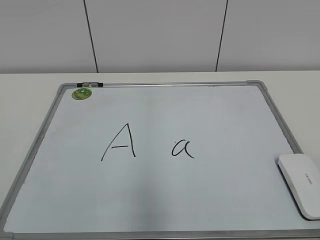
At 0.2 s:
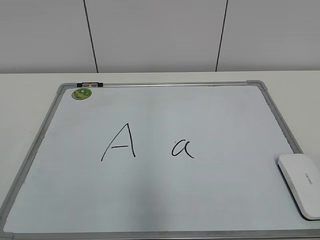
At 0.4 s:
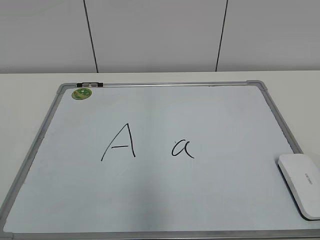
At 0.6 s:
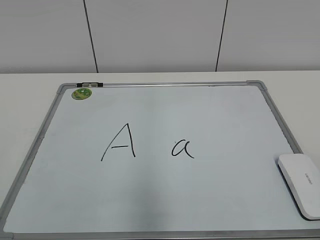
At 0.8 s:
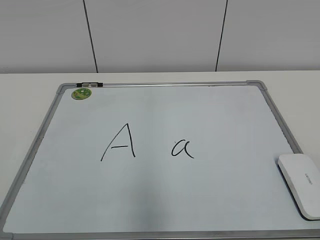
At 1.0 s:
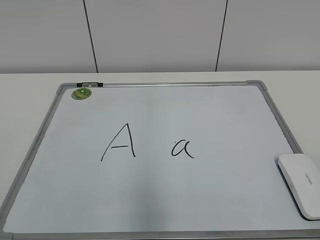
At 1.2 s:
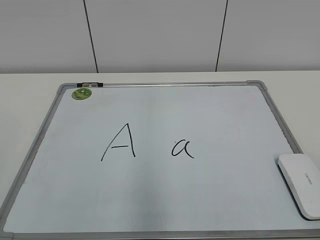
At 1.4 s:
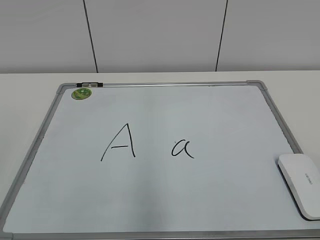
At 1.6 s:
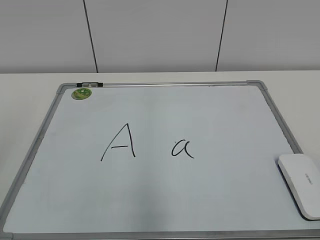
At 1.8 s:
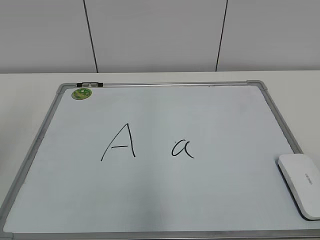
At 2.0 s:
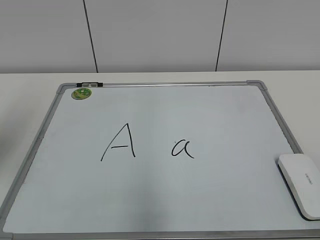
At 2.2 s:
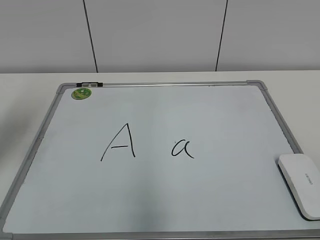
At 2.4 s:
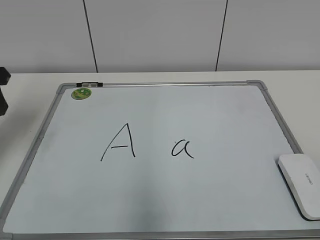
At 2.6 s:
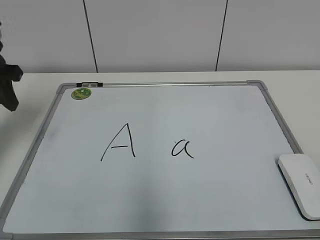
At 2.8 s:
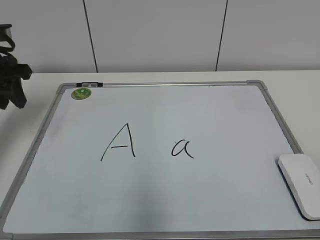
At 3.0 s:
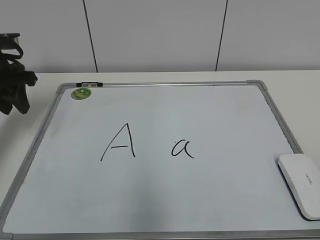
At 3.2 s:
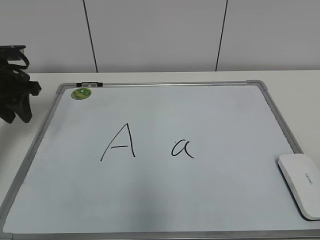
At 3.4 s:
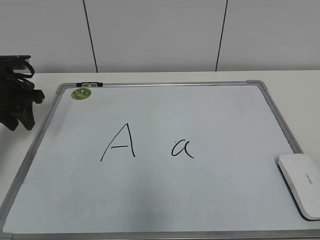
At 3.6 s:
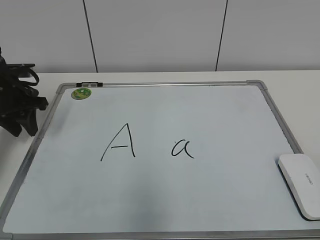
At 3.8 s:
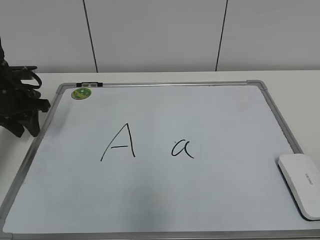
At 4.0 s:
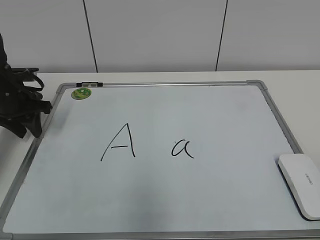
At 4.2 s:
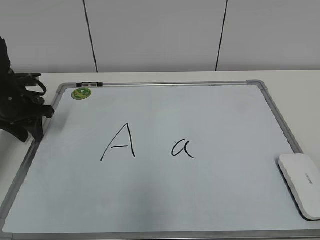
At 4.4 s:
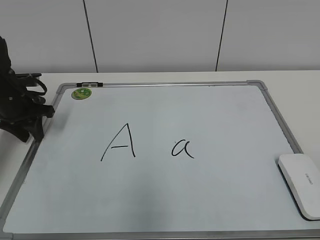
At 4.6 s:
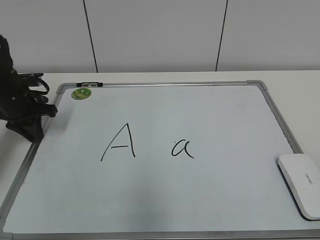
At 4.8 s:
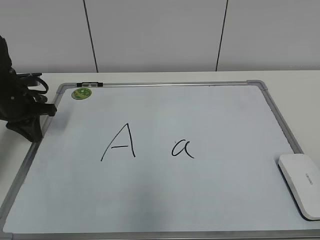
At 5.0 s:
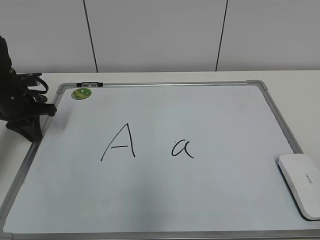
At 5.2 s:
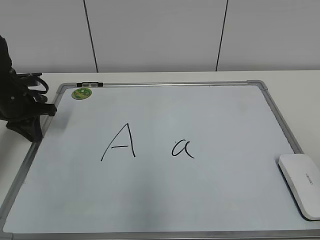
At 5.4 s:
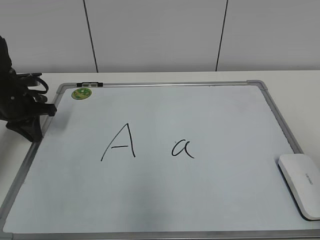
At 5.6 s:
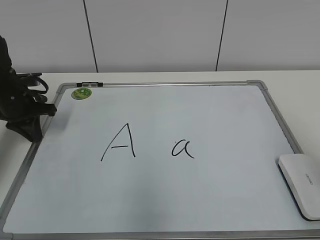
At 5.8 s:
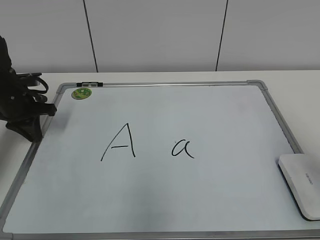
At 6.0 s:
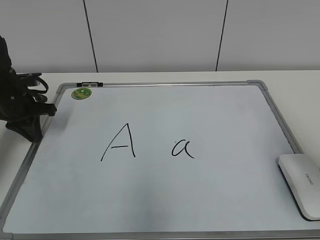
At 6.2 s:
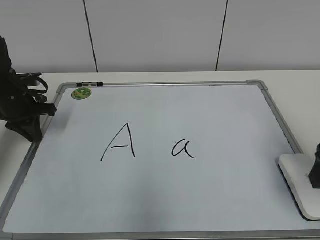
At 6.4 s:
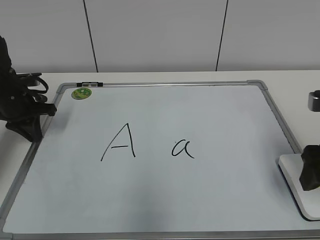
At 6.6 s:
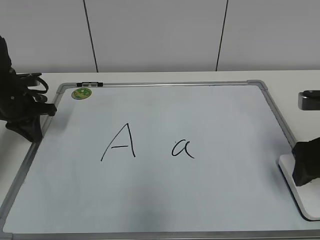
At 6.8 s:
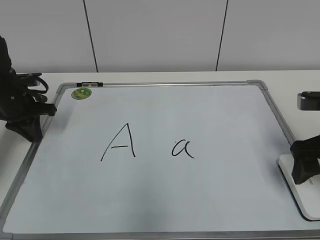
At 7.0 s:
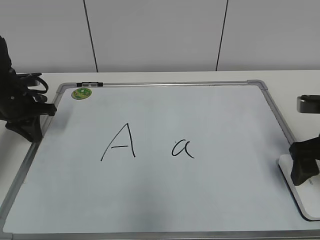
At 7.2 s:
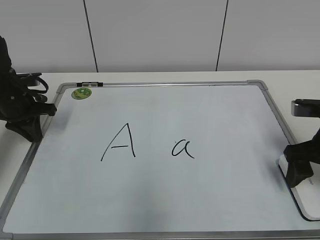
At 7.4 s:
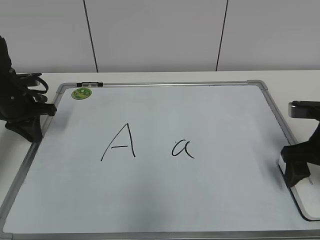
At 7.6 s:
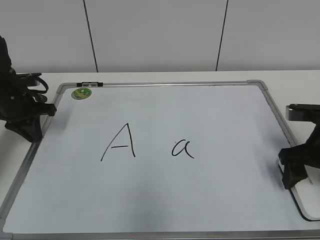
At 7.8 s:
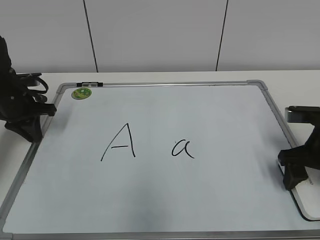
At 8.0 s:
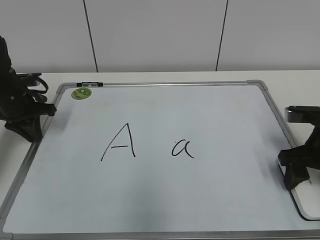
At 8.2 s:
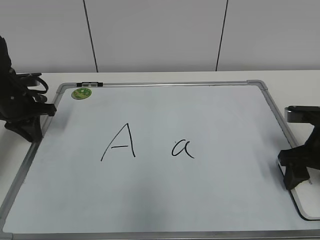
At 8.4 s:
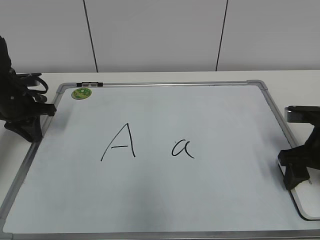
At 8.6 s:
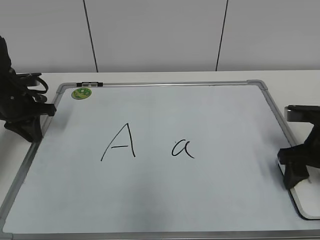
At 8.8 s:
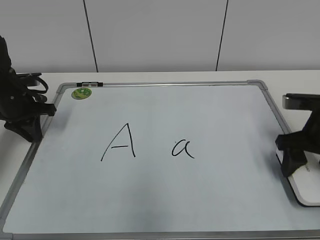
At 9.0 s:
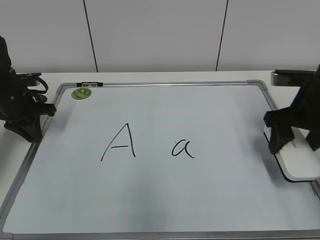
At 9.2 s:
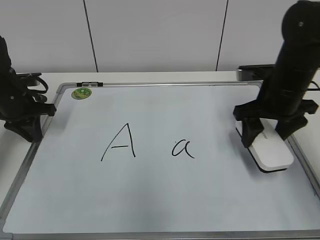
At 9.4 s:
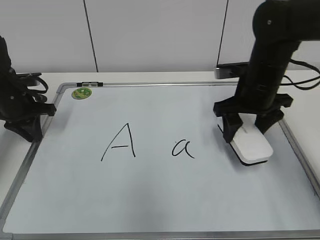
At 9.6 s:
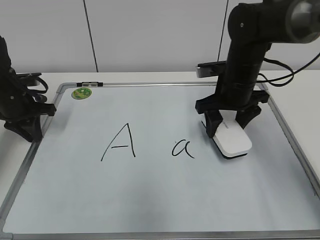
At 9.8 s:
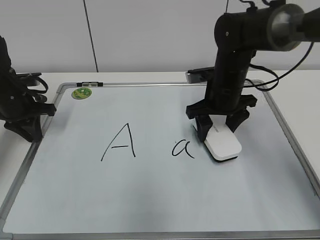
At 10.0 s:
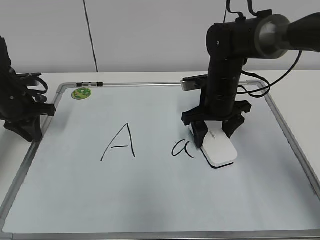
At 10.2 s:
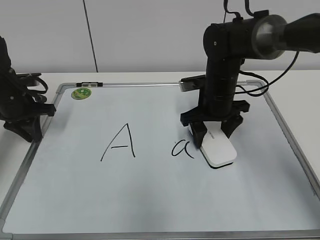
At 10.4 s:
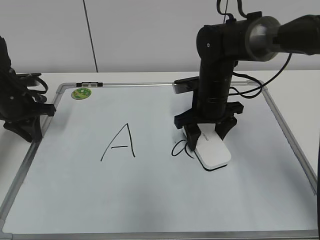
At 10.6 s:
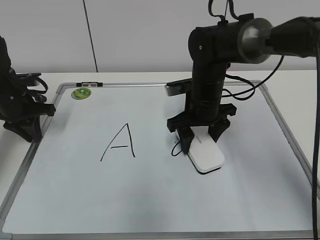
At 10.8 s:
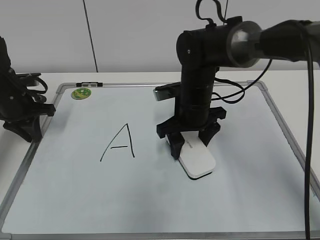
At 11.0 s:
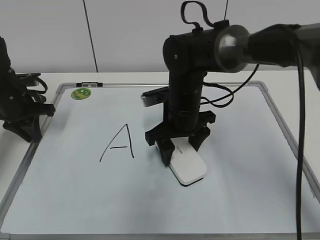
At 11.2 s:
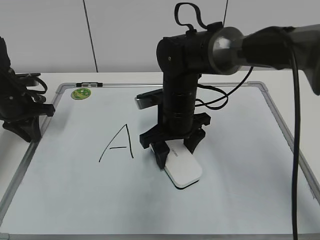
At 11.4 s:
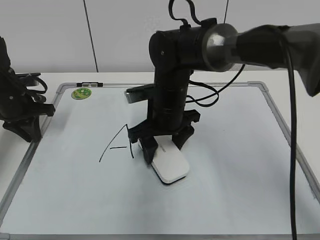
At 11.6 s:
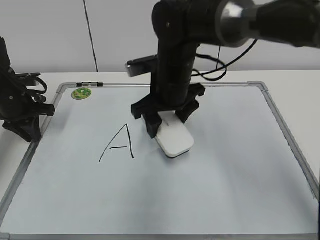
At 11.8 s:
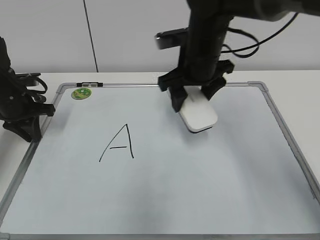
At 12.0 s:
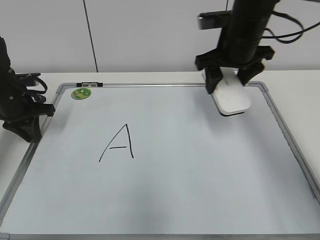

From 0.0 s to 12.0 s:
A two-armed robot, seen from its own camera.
Task of the whole recording: pick up the eraser on the blackboard and erase the letter "a".
Step, from 0.0 s to 4.6 s: Hold the drawing board steady with your left hand.
Step, from 4.8 s to 8.4 s: Grab the eraser with your right hand.
Step, from 8.6 s to 11.0 s: Erase the letter a with your right hand.
From 1.6 s to 3.0 s: The left gripper is displaced forward by approximately 25 cm.
From 3.0 s to 4.4 s: The left gripper travels downward by approximately 10 cm.
From 4.4 s to 6.0 s: The left gripper closes its fingers, while the right gripper heads forward, covering roughly 20 cm, and opens.
From 6.0 s to 7.6 s: The right gripper shifts roughly 15 cm downward and forward.
From 7.6 s to 9.0 s: The right gripper ends up roughly 5 cm from where it was, and closes.
From 9.0 s to 10.4 s: The right gripper travels to the left and forward by some 15 cm.
From 10.4 s to 12.0 s: The right gripper moves upward and to the right, roughly 15 cm.

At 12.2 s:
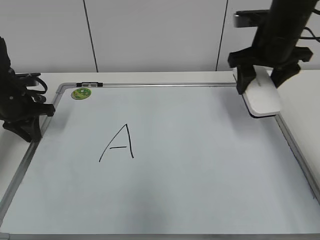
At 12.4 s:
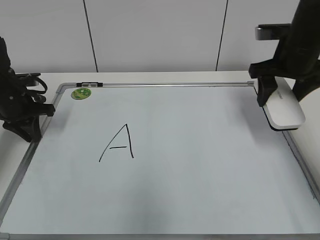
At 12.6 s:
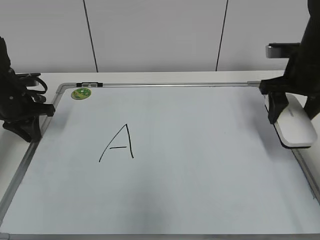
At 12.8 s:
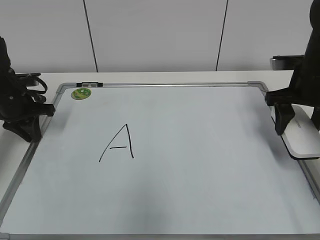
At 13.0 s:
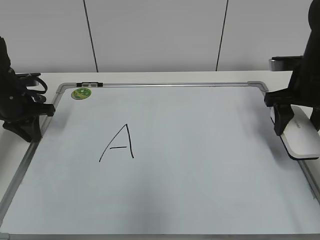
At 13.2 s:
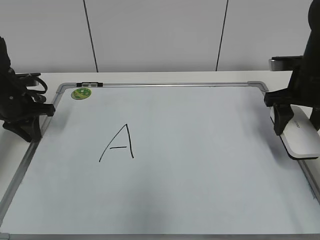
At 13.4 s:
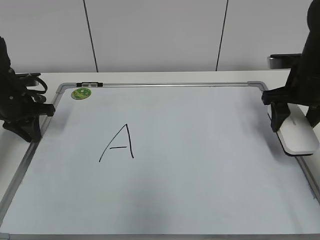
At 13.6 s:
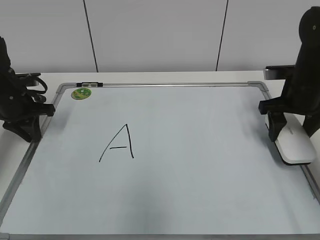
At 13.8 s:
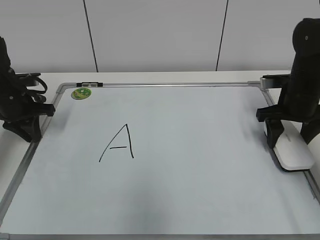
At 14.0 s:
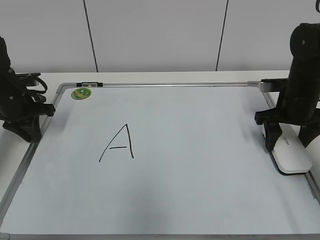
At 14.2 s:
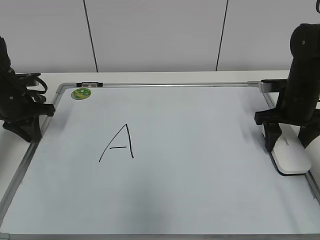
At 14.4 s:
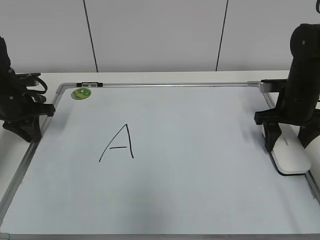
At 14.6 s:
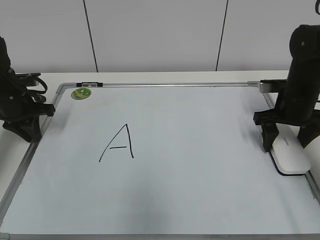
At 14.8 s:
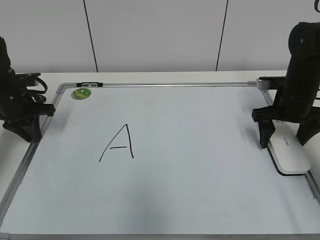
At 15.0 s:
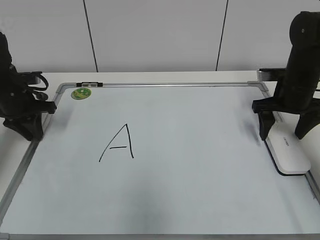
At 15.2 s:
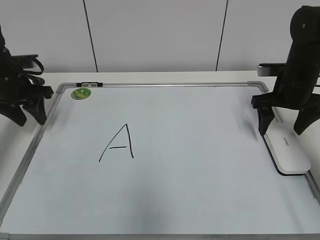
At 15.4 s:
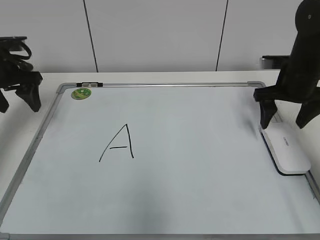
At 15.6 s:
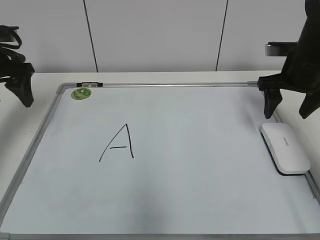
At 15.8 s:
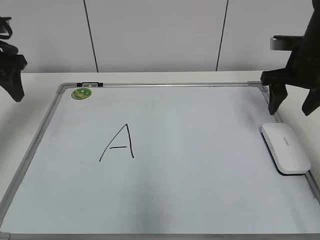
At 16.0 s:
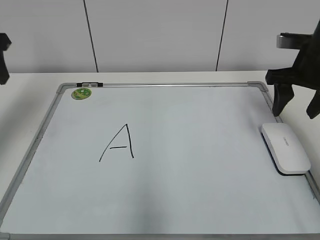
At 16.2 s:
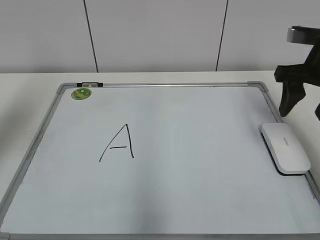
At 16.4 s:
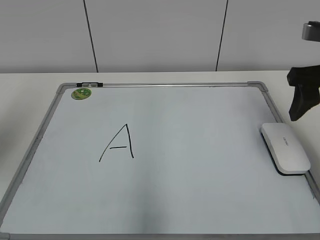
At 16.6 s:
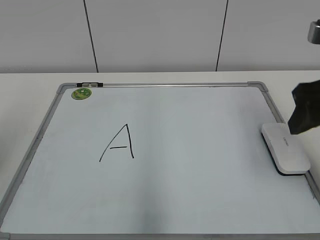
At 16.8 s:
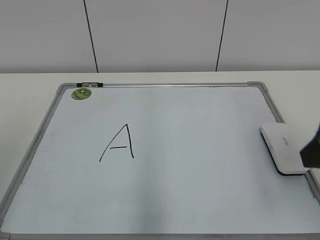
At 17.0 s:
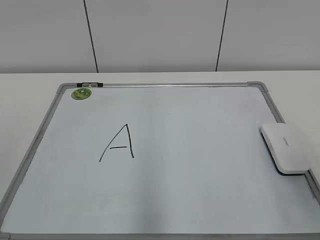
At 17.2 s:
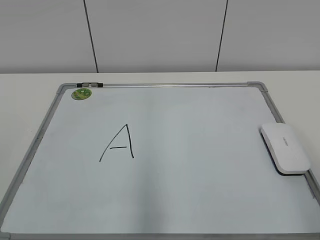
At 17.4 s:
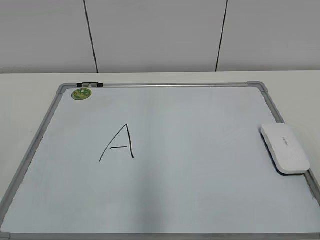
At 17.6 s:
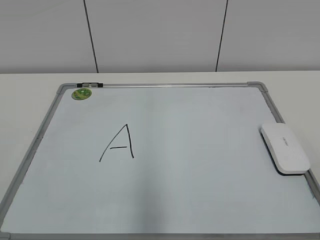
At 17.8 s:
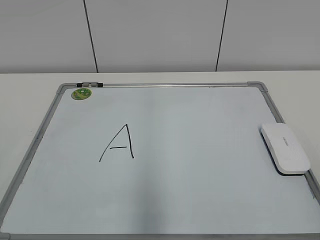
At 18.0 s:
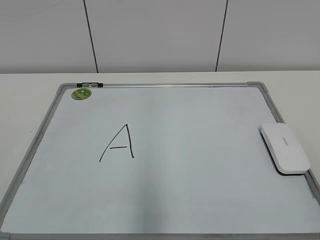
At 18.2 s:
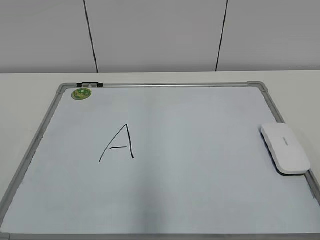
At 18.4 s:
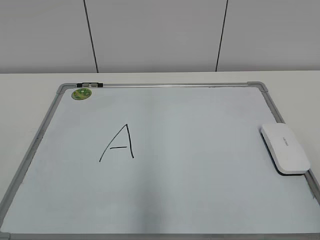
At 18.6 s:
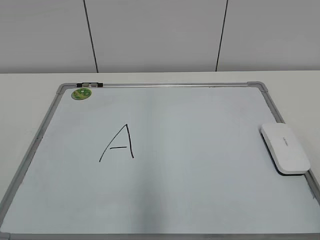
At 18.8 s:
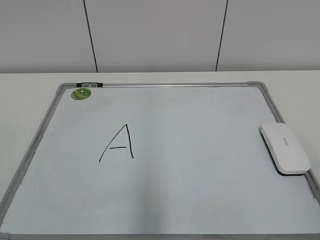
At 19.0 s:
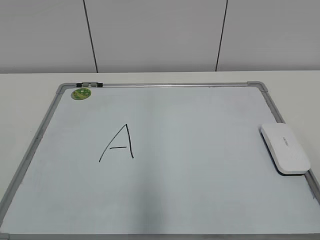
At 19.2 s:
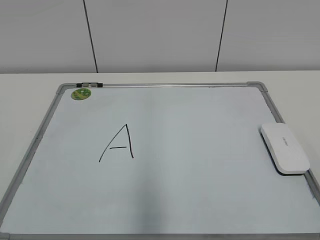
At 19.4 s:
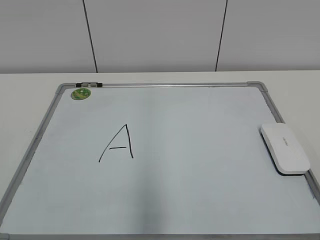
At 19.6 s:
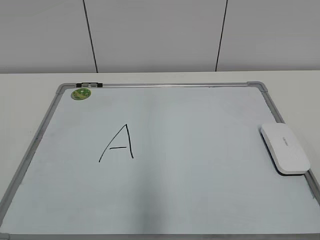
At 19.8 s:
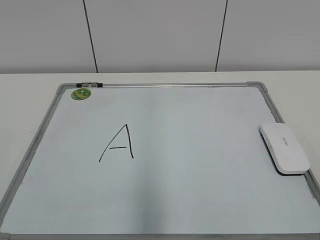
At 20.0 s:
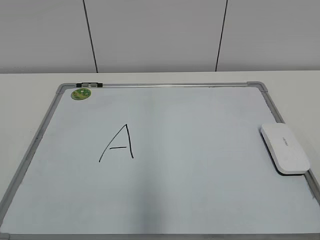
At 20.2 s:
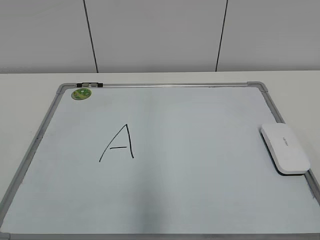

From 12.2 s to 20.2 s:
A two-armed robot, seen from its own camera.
Task of the whole recording: pick up the eraser on the blackboard and erase the letter "a".
Step, from 12.2 s to 14.4 s: Put down the eraser with your right hand.
From 12.2 s to 13.8 s: The right gripper shifts about 10 cm downward and to the right.
From 13.8 s to 15.4 s: The left gripper heads upward, covering approximately 10 cm, and opens up; the right gripper opens up.
From 15.4 s to 17.0 s: The grippers both shift backward by approximately 30 cm. The right gripper closes.
From 17.0 s to 18.6 s: The right gripper goes some 10 cm backward.
